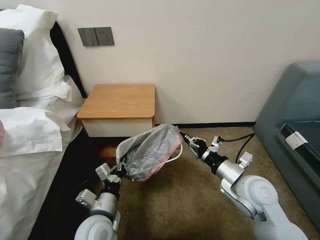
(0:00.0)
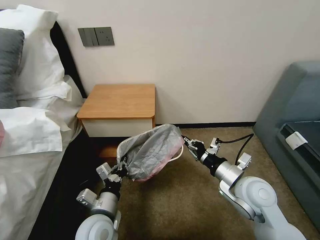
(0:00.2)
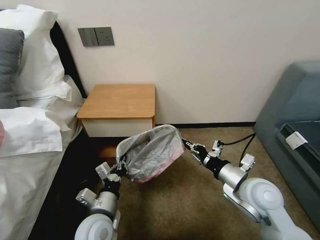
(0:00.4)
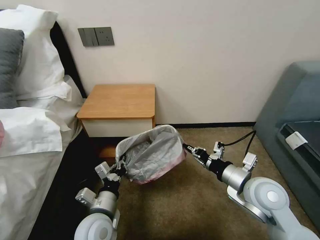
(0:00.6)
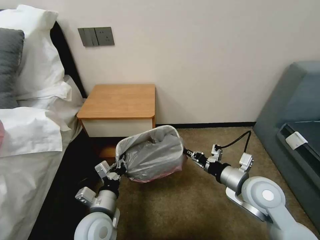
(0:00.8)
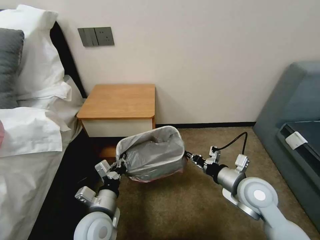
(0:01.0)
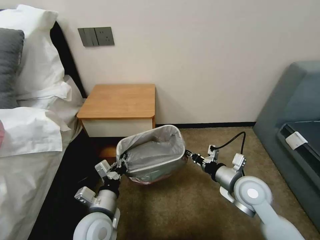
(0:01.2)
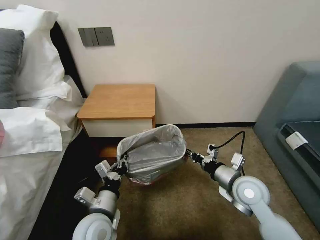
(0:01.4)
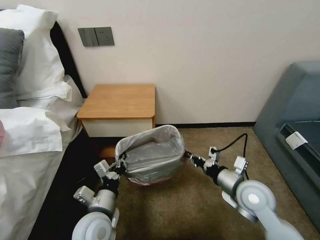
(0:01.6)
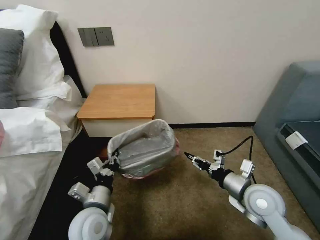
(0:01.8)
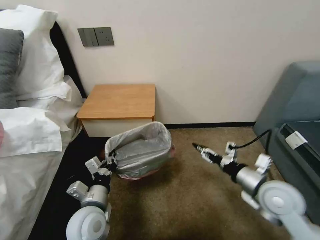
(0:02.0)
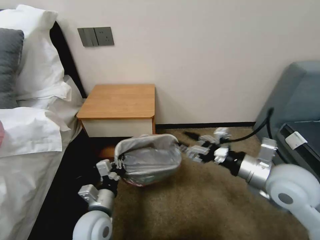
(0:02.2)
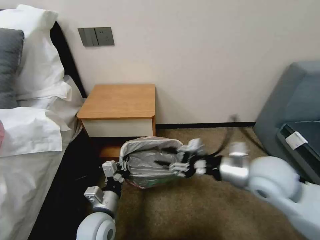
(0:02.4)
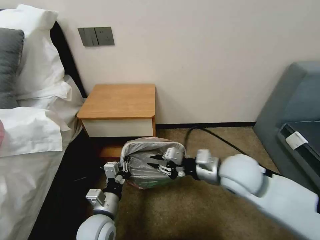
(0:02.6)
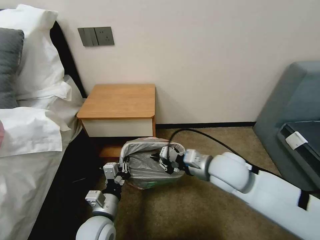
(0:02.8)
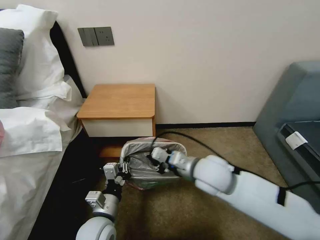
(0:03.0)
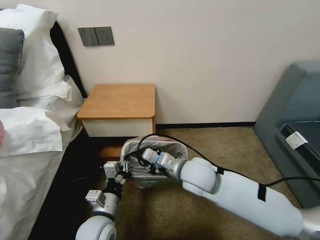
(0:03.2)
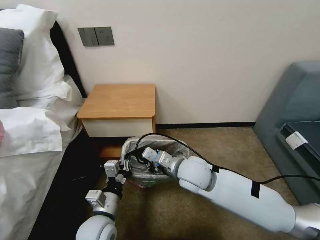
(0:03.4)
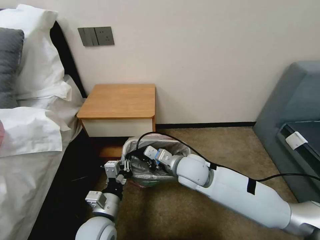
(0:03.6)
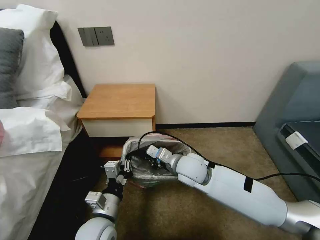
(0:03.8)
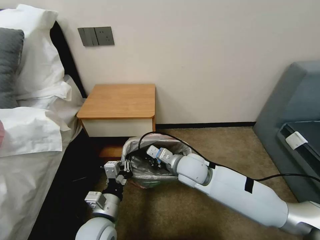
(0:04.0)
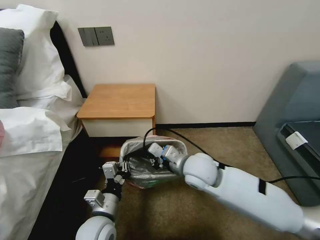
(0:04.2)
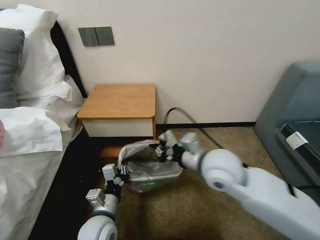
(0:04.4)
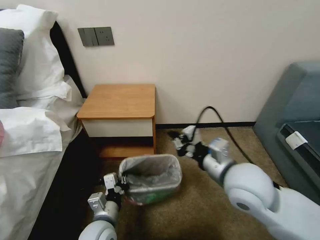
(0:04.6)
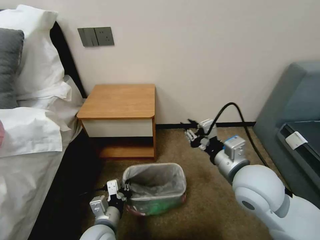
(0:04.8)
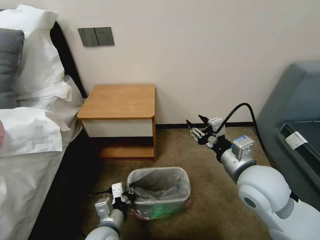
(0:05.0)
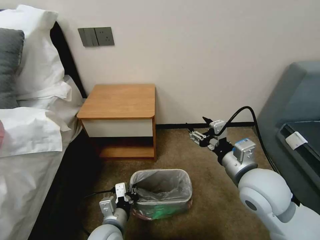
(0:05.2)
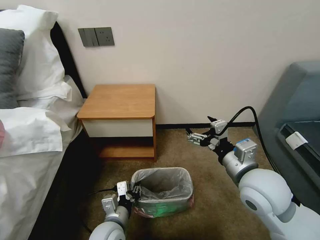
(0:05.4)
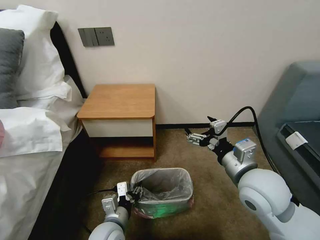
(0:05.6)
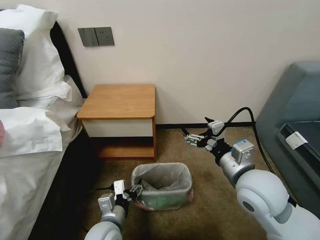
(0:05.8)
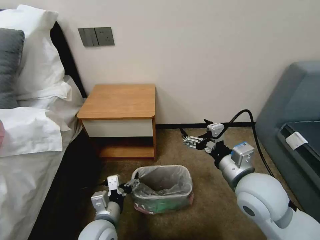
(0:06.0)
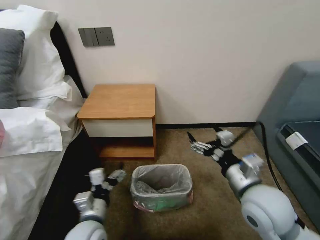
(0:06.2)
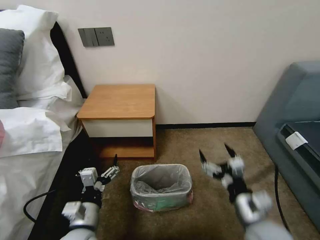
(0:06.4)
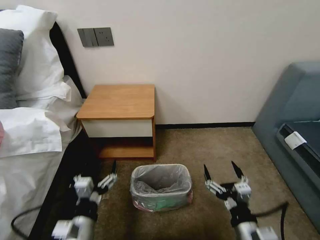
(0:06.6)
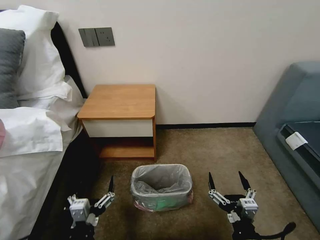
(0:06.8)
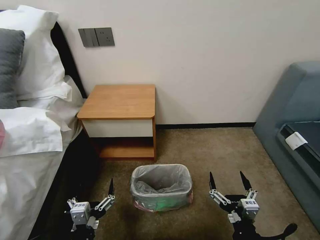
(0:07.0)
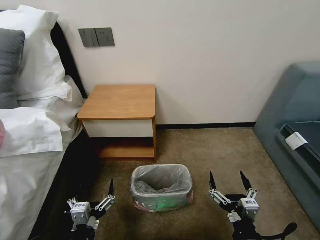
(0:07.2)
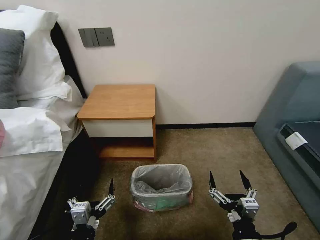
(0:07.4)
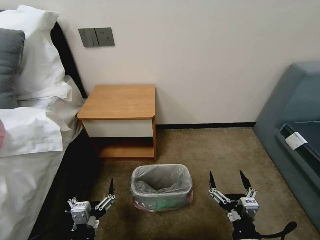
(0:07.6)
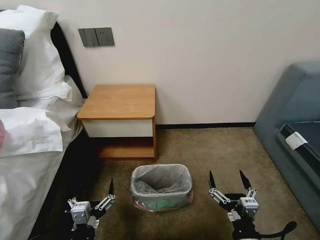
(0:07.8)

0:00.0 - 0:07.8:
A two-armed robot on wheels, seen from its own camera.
Task of the whole recording: Pick up the garbage bag from the table and place it over the trash can.
0:01.6 - 0:03.2: The right gripper travels to the left by approximately 15 cm, and opens, then closes once more.
0:03.2 - 0:04.6: The right gripper moves to the right, upward and backward, roughly 15 cm.
0:04.6 - 0:06.2: The right gripper changes place by approximately 5 cm, and opens its fingers. The left gripper opens its fingers.
0:06.2 - 0:07.8: The left gripper is displaced backward by approximately 10 cm, while the right gripper is displaced backward and downward by roughly 20 cm.
